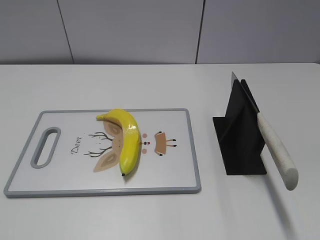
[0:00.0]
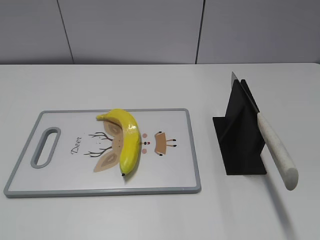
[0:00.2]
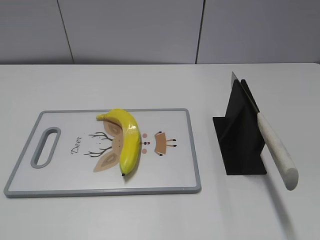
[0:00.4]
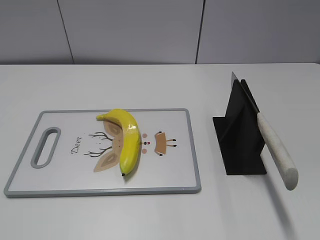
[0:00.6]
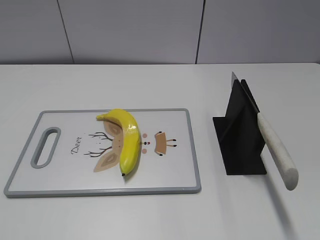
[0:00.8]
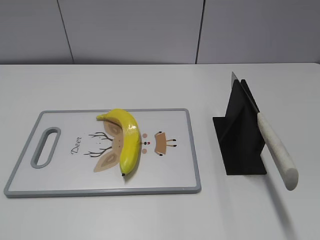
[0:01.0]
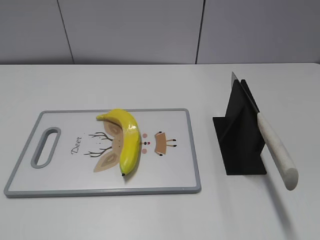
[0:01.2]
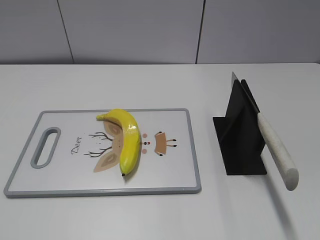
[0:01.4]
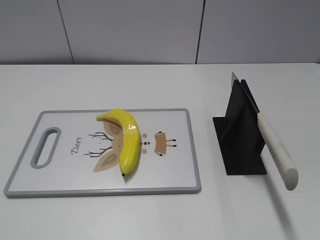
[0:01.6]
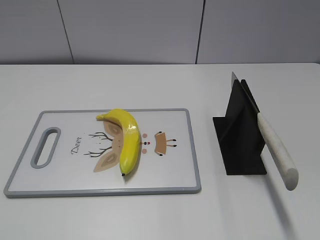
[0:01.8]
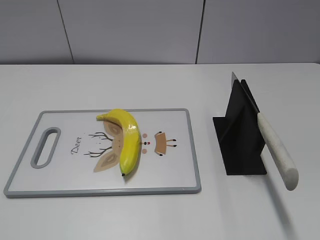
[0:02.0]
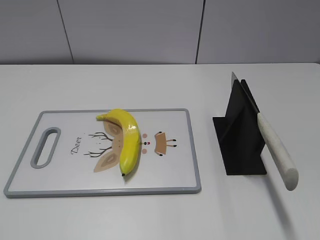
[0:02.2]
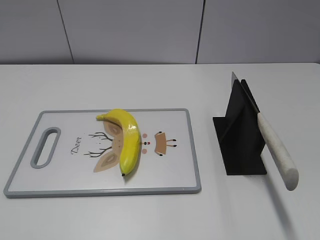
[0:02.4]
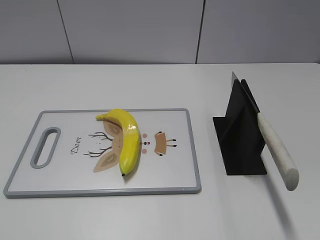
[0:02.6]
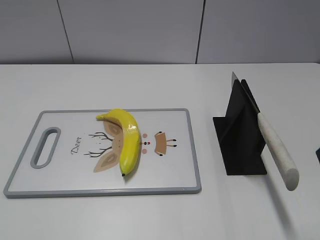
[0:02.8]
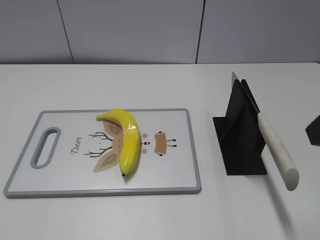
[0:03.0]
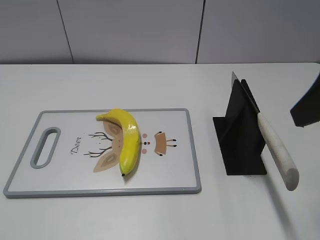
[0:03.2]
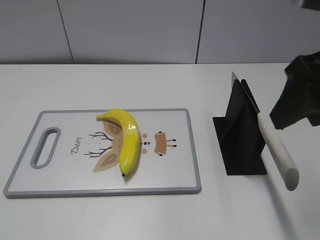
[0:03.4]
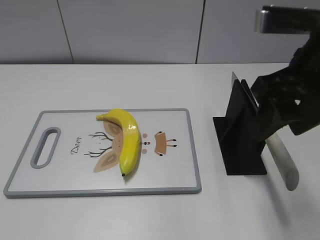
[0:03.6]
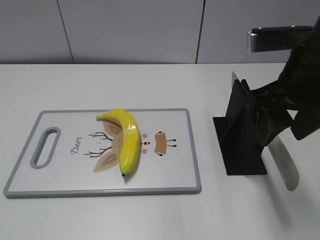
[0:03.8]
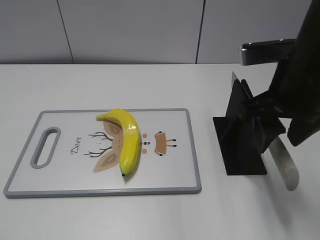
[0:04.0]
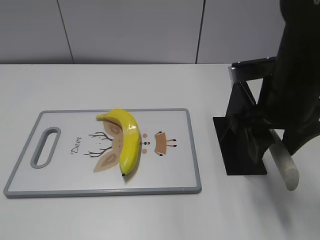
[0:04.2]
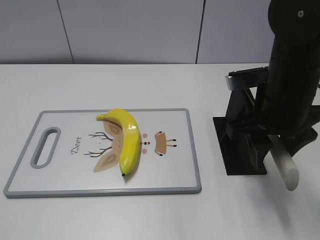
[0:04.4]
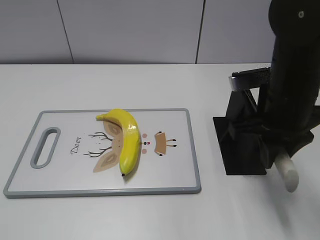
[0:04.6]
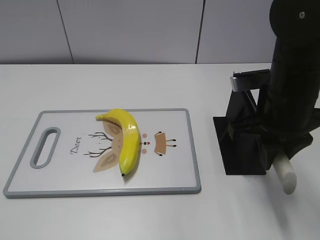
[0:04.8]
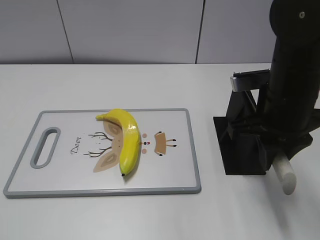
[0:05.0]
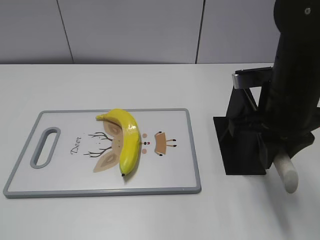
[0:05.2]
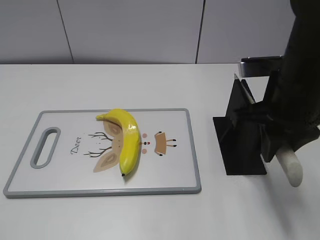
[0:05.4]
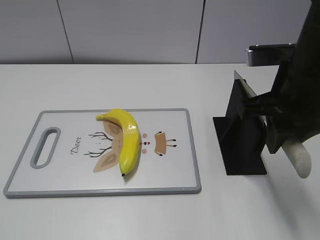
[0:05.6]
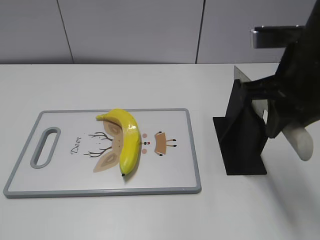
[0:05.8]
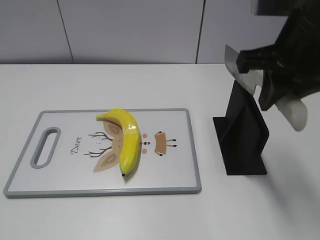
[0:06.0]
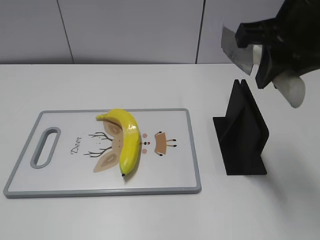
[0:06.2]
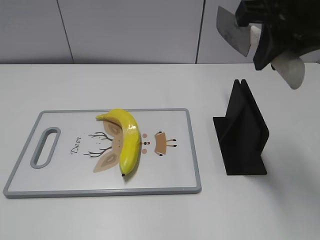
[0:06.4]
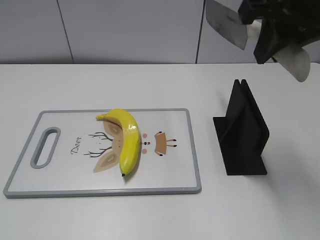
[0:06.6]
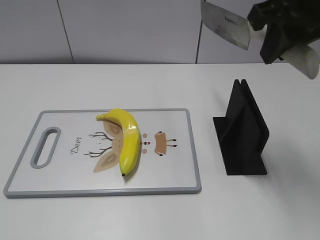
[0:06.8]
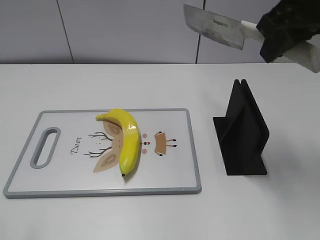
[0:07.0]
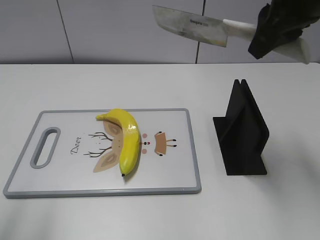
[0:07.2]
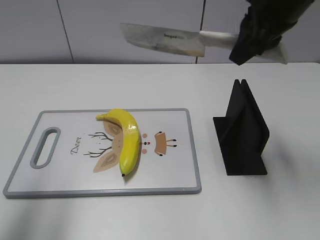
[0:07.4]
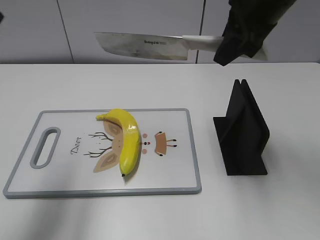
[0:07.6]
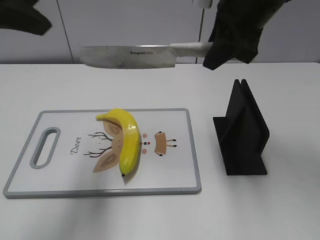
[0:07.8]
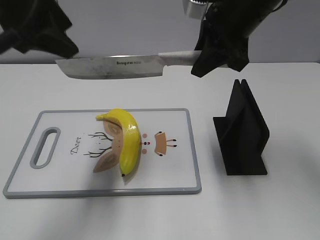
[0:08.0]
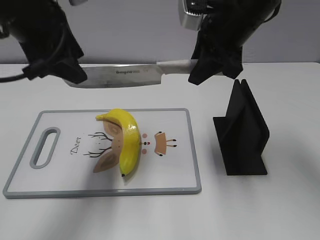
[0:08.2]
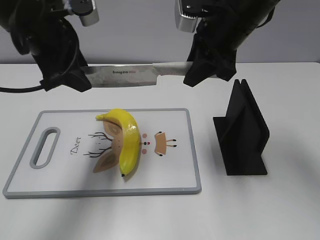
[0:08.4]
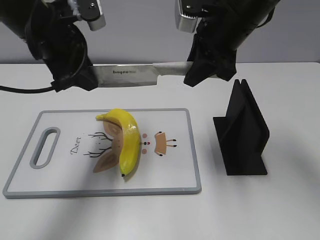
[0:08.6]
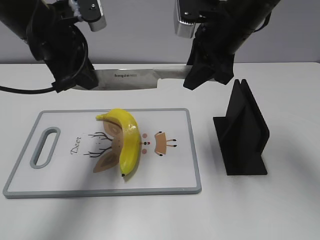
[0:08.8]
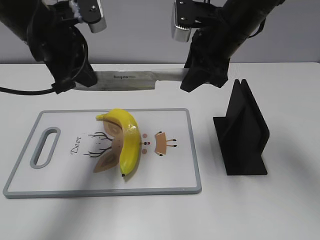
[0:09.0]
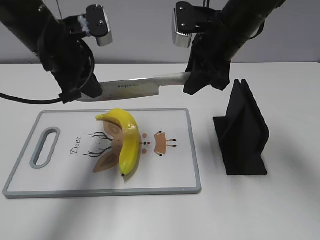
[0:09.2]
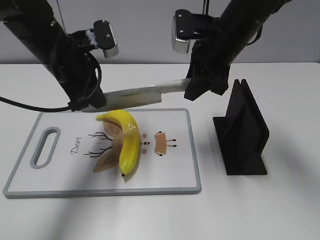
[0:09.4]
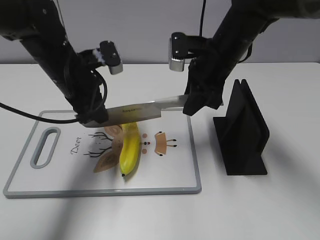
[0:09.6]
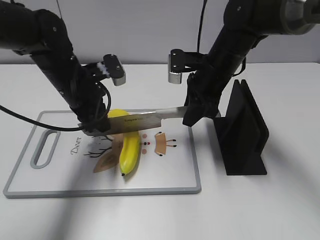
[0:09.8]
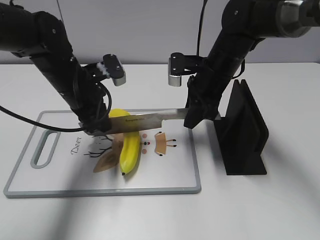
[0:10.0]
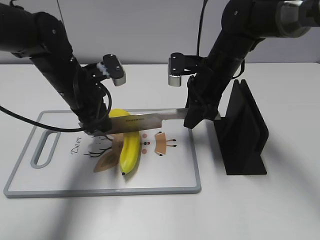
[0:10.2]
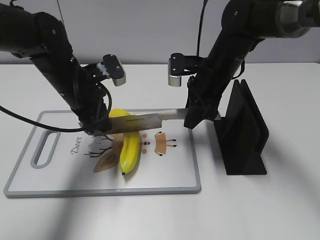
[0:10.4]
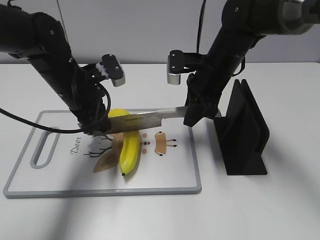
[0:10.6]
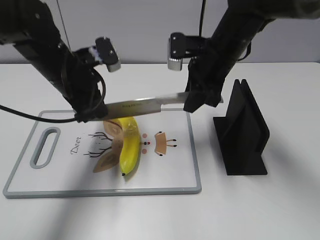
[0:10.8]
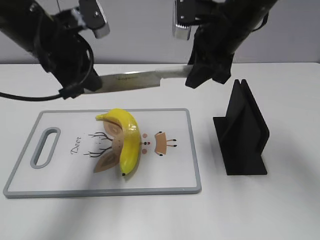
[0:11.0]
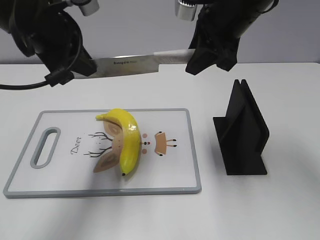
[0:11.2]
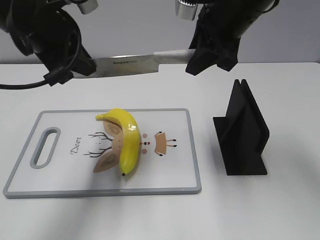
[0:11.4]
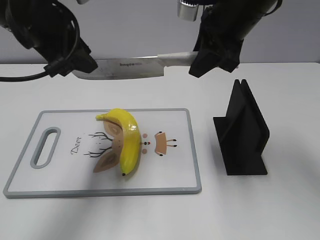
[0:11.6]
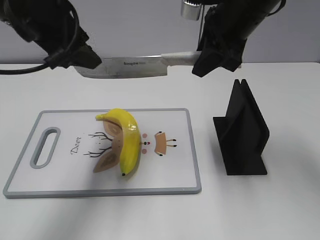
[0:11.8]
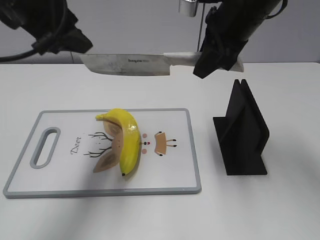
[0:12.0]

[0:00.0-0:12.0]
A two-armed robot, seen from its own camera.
Task of the whole recording: cut plastic banana.
Step, 0:00.0 to 0:05.8: Grab the knife handle with your right hand.
Step, 0:06.2 to 0:10.8: Lift the knife with your right hand.
0:03.0 to 0:04.4: The right gripper shifts some 15 cm downward, forward and to the left.
0:04.4 to 0:06.0: The right gripper goes approximately 10 cm upward, and closes up.
0:06.0 to 0:07.6: The right gripper goes approximately 10 cm forward. The left gripper goes some 25 cm forward and upward.
0:07.6 to 0:09.0: The left gripper heads downward, forward and to the right, covering some 20 cm, and closes its fingers, while the right gripper shifts some 5 cm downward.
0:09.0 to 0:10.4: Both grippers move downward, roughly 10 cm.
0:10.4 to 0:12.0: Both grippers travel together upward, some 15 cm. The left gripper opens up.

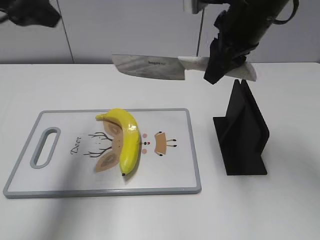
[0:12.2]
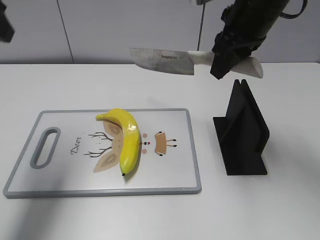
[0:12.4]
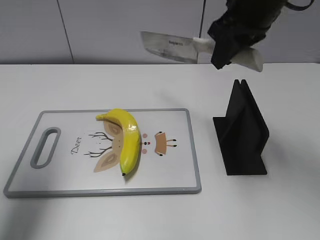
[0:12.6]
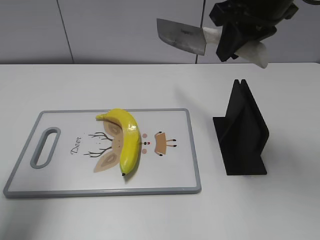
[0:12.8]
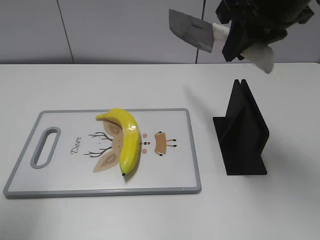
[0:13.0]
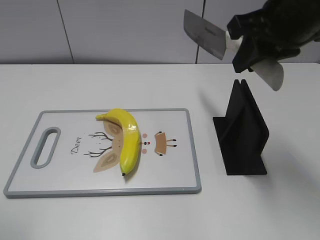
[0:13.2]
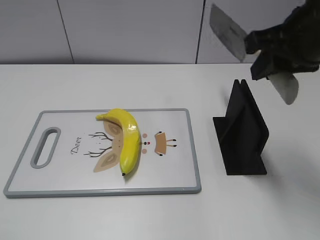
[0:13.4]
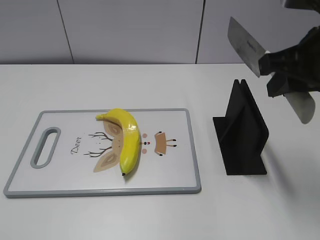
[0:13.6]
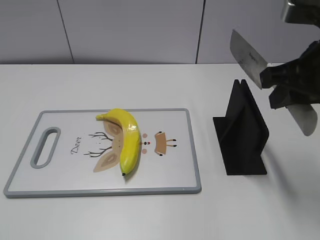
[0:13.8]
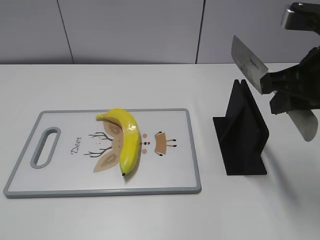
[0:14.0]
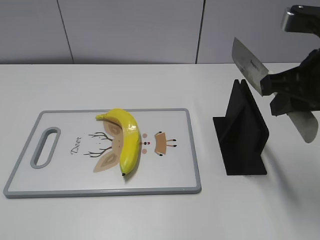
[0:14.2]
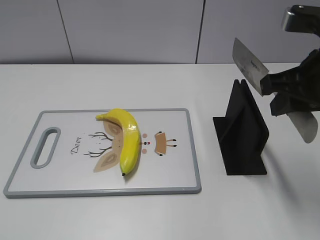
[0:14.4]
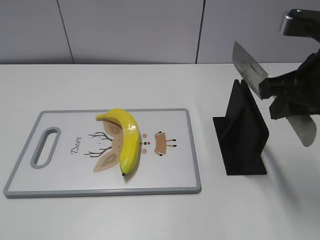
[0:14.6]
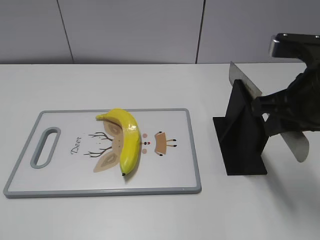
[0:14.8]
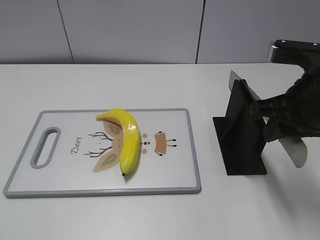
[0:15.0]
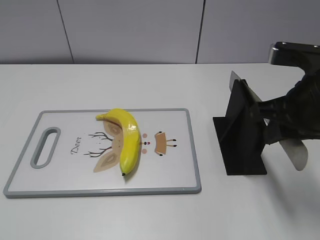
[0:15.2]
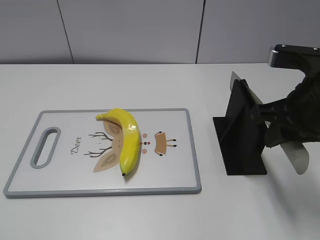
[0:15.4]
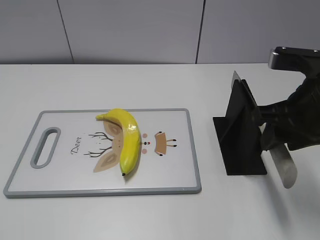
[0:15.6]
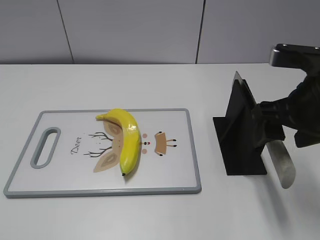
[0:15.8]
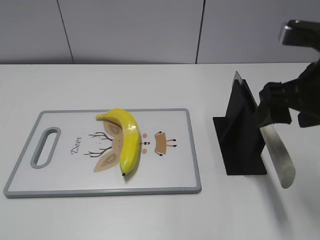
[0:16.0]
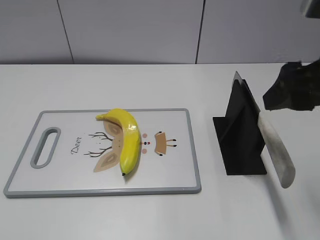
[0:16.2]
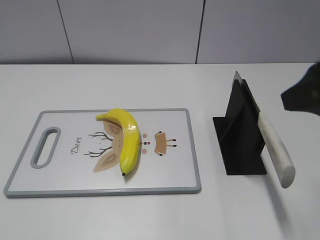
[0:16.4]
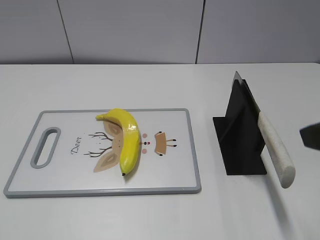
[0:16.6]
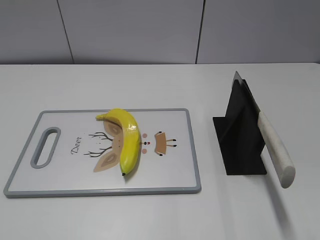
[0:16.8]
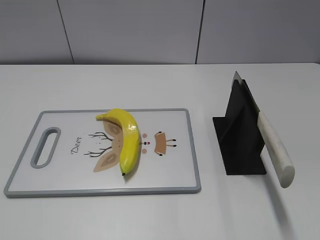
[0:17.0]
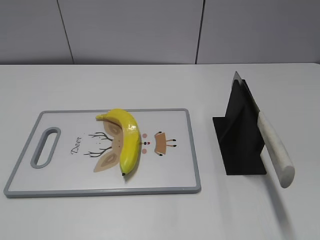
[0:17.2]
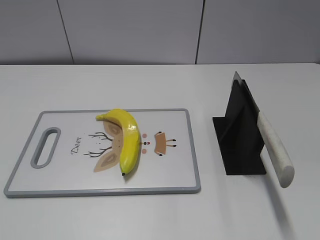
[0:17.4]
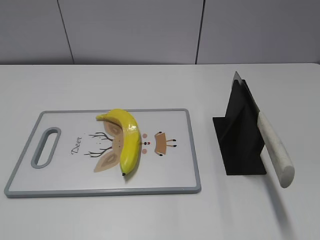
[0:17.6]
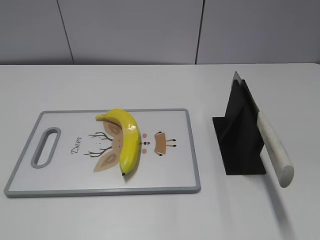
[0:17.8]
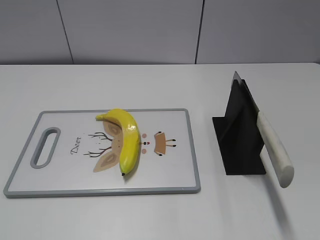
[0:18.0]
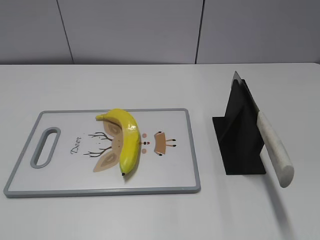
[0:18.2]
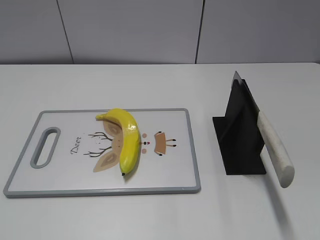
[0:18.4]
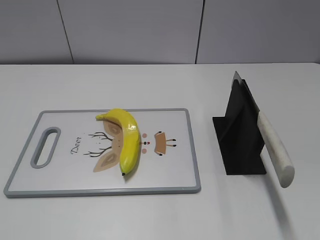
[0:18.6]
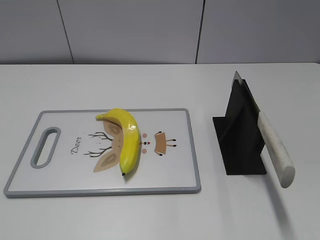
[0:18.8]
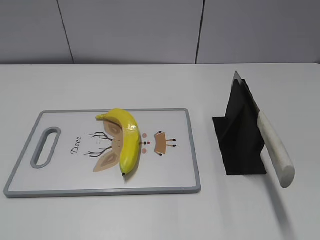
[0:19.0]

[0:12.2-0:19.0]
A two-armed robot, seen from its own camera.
Task of the whole recording: cut plastic banana.
Step, 0:13.0 to 0:14.2: Lift the knife with your right hand.
Step, 0:14.4 to 0:19.0: Place the knife on the storage rack with your right hand.
0:12.2 to 0:13.6: The left gripper heads backward, covering roughly 25 cm; the right gripper is displaced backward and to the right by approximately 15 cm.
0:13.6 to 0:15.0: The right gripper is displaced downward by about 5 cm.
0:15.0 to 0:16.2: The right gripper travels upward by roughly 5 cm, and opens its fingers.
0:16.2 to 0:17.6: The right gripper heads backward and to the right, covering approximately 20 cm.
